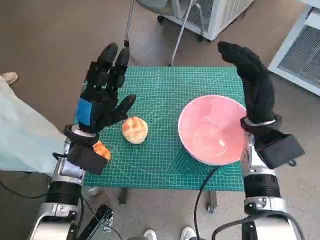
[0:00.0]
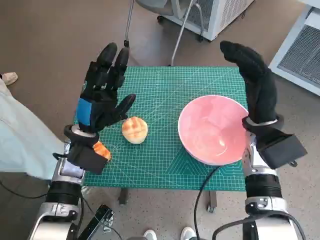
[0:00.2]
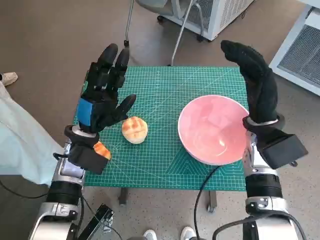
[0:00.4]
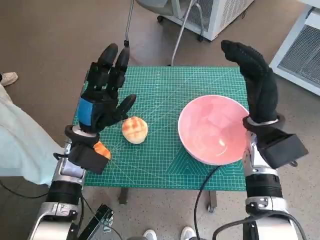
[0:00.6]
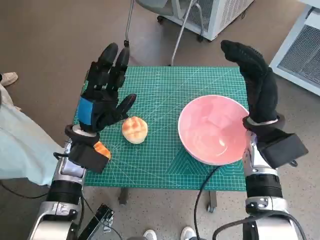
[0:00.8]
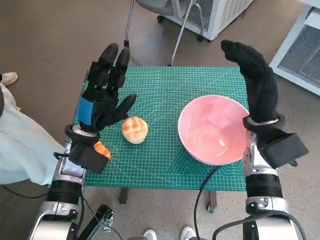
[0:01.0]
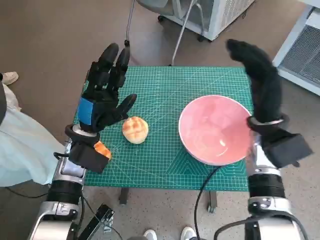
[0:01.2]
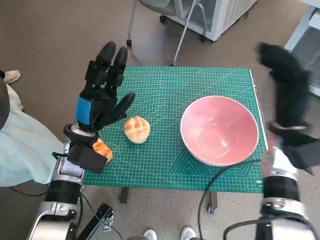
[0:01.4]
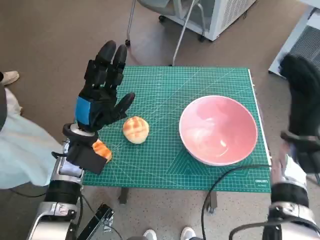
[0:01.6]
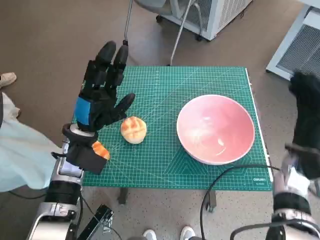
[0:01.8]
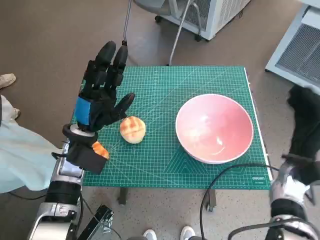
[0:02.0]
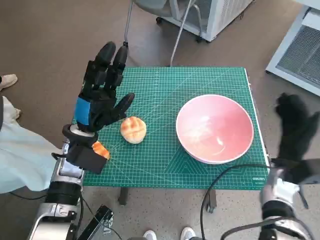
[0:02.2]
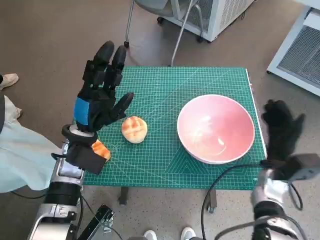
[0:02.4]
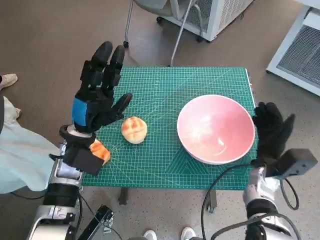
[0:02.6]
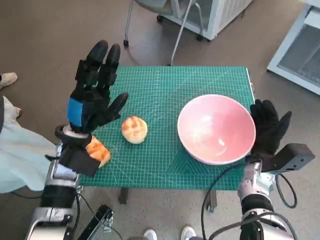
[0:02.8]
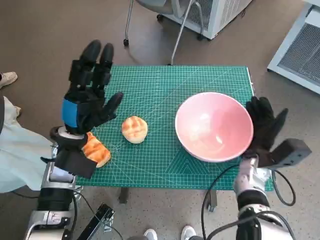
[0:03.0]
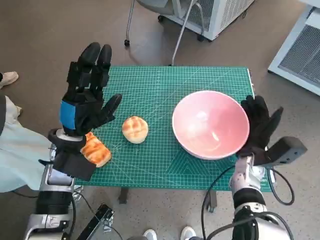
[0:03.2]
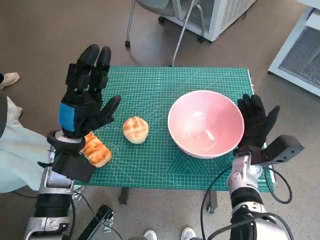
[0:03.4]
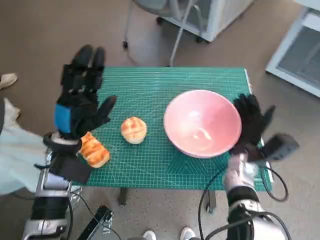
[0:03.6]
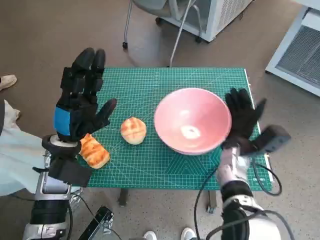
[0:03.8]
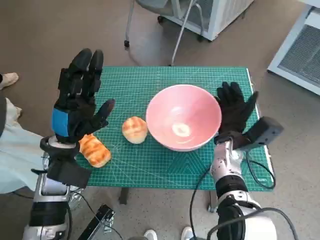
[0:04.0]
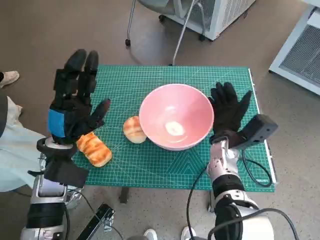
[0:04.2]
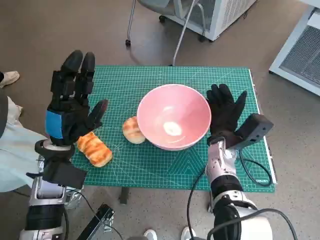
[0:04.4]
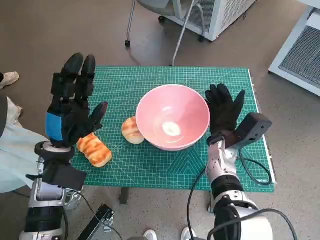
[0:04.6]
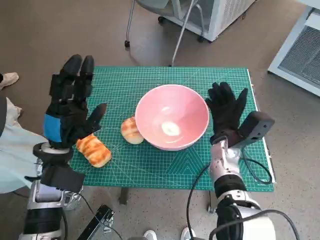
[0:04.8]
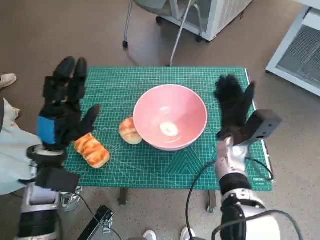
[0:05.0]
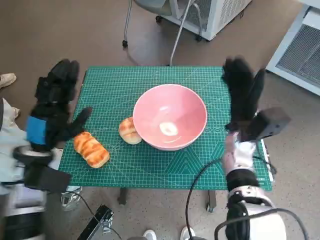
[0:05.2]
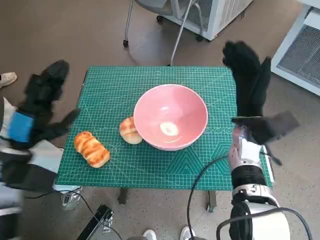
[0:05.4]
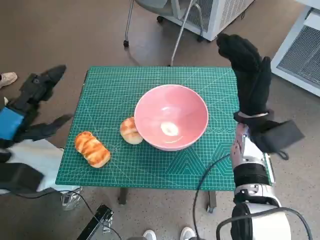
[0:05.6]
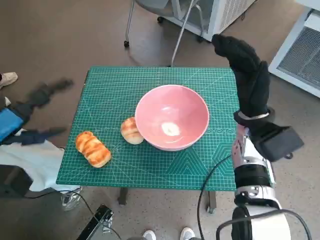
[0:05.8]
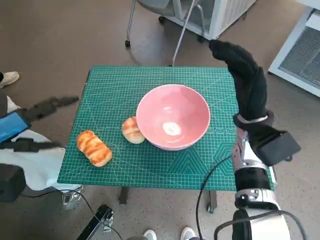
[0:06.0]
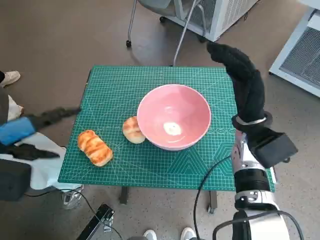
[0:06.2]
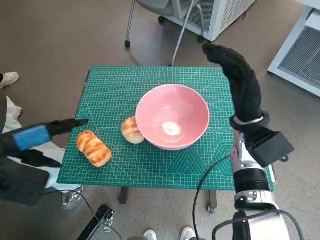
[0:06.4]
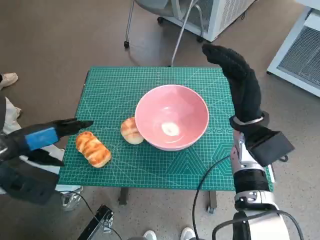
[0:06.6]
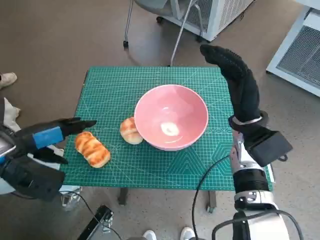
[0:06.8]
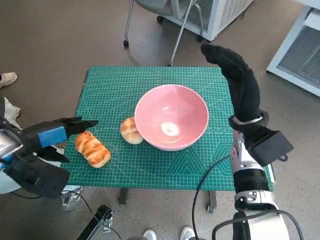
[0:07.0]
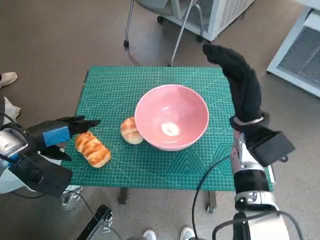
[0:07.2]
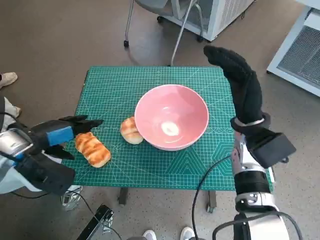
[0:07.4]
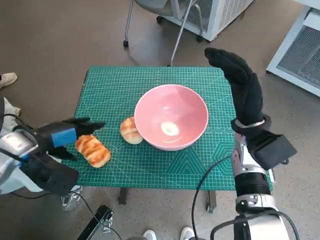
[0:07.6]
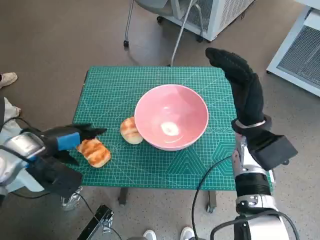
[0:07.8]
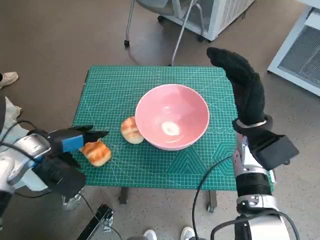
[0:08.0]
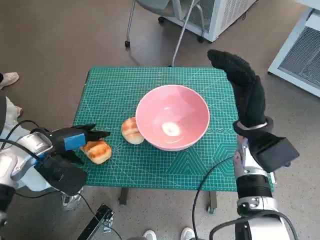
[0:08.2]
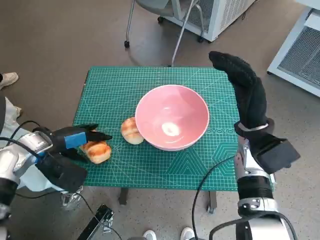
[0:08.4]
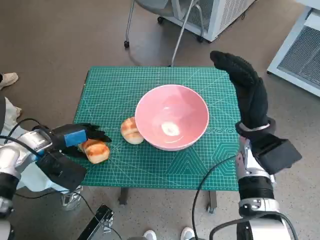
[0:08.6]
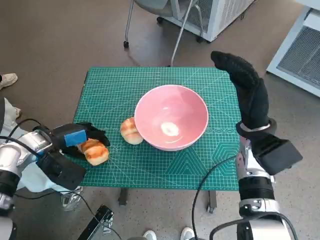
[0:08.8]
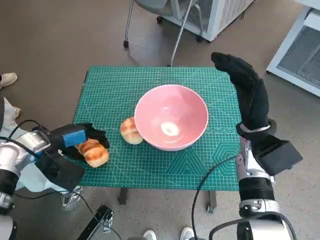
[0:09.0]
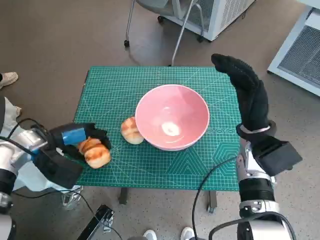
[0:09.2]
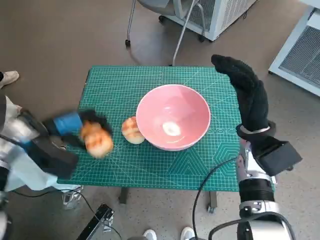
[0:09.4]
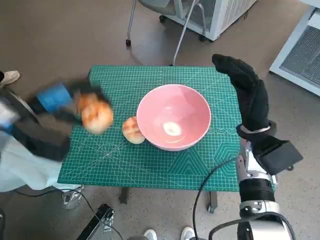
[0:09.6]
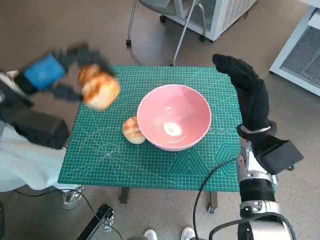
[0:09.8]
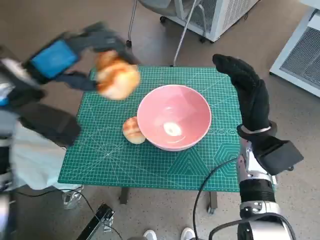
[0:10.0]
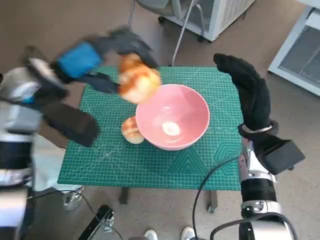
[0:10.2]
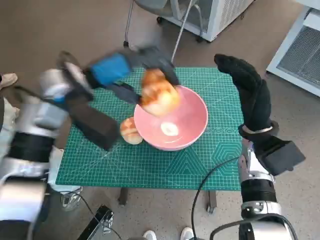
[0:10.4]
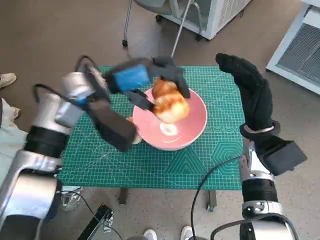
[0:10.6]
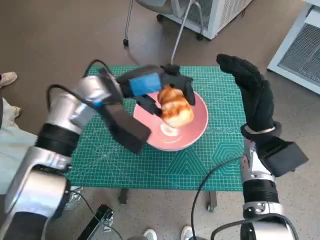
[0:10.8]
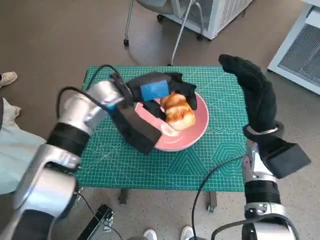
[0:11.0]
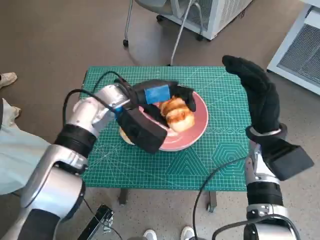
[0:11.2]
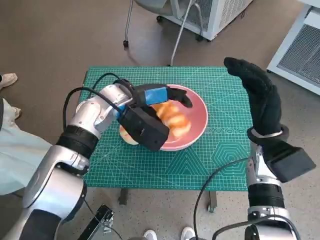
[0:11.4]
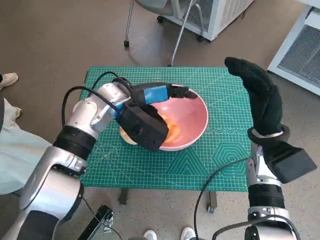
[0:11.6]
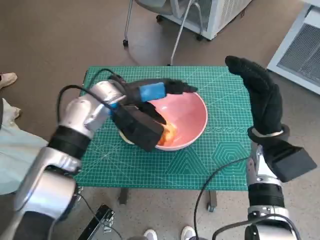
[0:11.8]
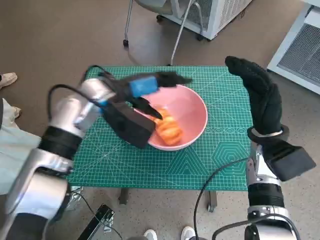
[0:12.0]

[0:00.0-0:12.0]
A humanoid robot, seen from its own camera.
Task of the whole recording: Push the bowl to the center of the table and put the bread into the bowl.
Step, 0:00.0 to 0:04.8: Move the pink bowl to the center of table with right hand.
Step, 0:05.2 to 0:09.0: Grasp the long bread with left hand.
Step, 0:09.2 to 0:12.0: Place the long bread in pink bowl with left hand.
0:01.6 to 0:03.0: The right hand travels downward by roughly 10 cm.
0:03.0 to 0:04.4: The right hand goes some 10 cm to the left.
0:04.4 to 0:06.0: The left hand shifts approximately 15 cm to the left and upward; the right hand is displaced upward by approximately 10 cm.
0:06.0 to 0:07.6: The left hand shifts roughly 5 cm downward.
0:07.6 to 0:09.0: The left hand shifts roughly 5 cm downward.
0:09.0 to 0:10.4: The left hand heads upward and to the right, covering some 20 cm.
0:10.4 to 0:12.0: The left hand moves about 5 cm.

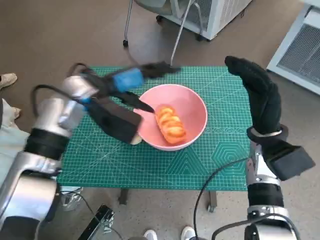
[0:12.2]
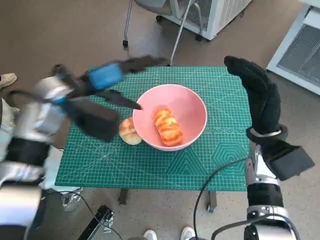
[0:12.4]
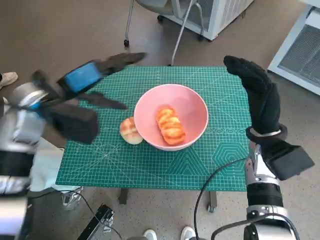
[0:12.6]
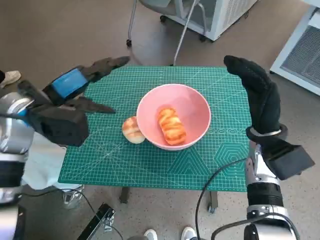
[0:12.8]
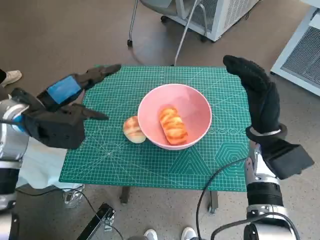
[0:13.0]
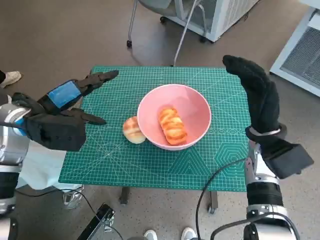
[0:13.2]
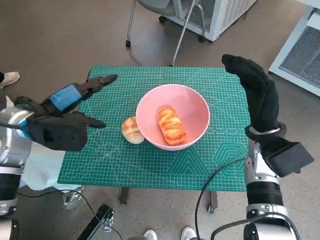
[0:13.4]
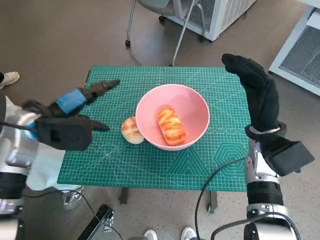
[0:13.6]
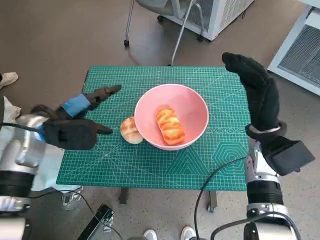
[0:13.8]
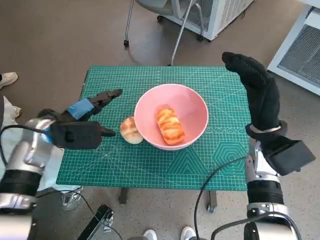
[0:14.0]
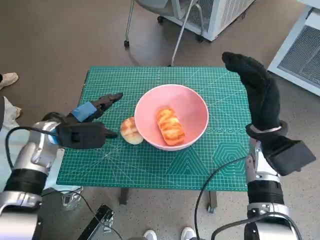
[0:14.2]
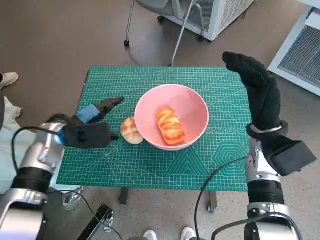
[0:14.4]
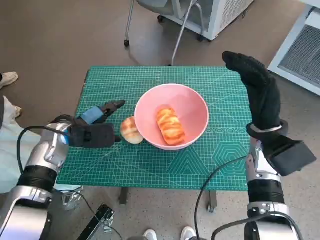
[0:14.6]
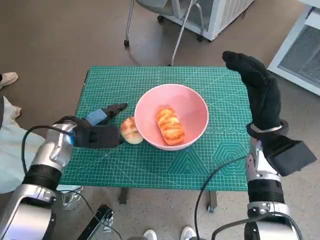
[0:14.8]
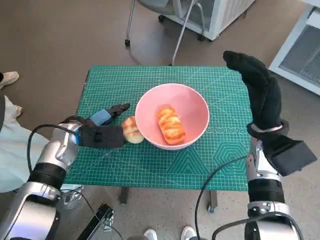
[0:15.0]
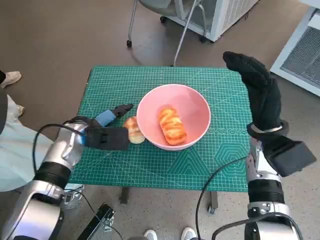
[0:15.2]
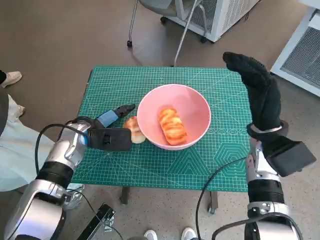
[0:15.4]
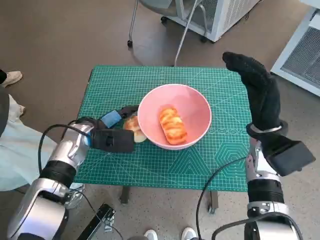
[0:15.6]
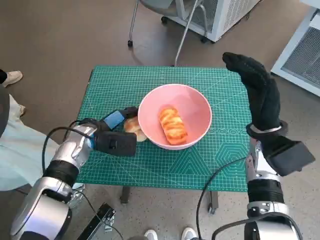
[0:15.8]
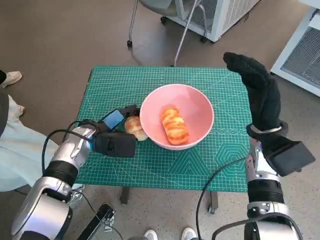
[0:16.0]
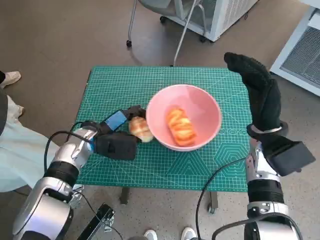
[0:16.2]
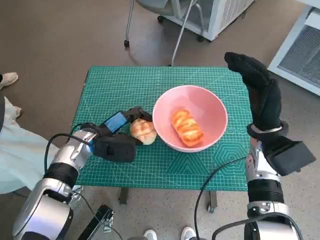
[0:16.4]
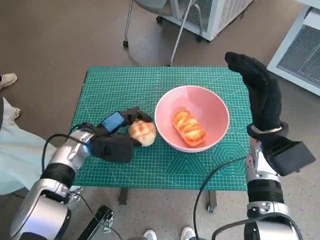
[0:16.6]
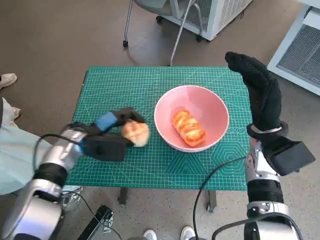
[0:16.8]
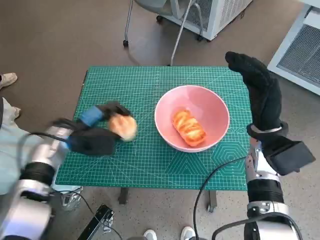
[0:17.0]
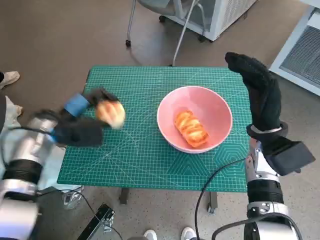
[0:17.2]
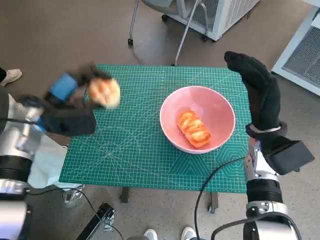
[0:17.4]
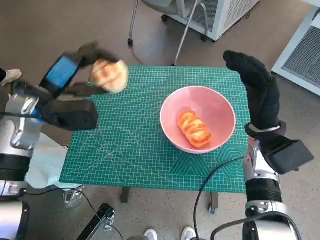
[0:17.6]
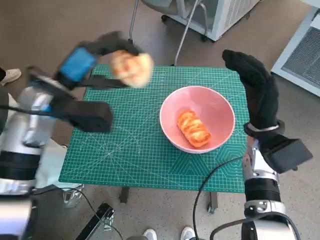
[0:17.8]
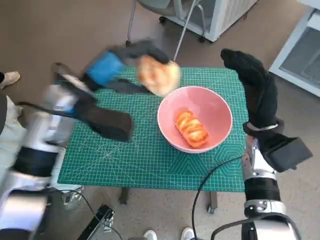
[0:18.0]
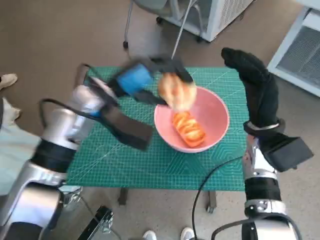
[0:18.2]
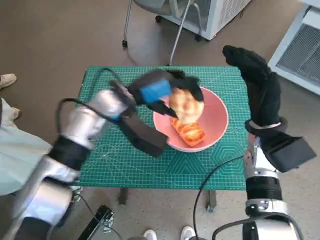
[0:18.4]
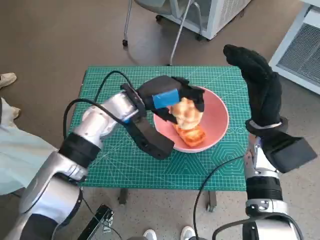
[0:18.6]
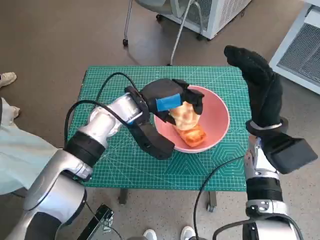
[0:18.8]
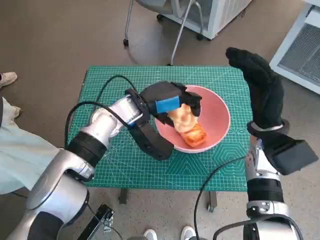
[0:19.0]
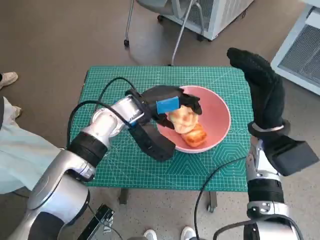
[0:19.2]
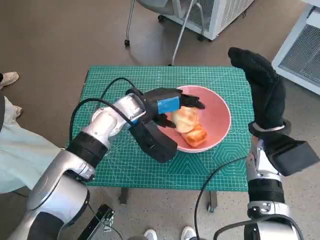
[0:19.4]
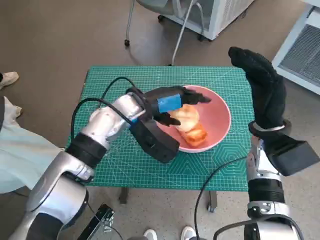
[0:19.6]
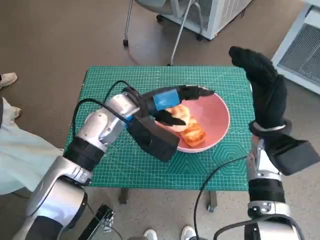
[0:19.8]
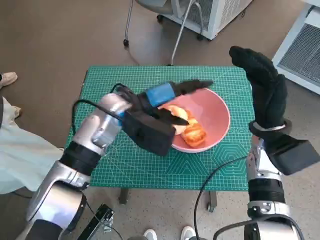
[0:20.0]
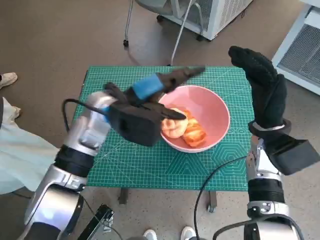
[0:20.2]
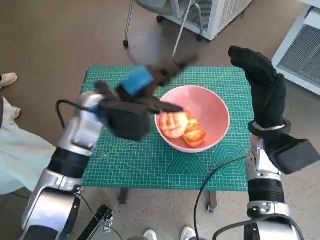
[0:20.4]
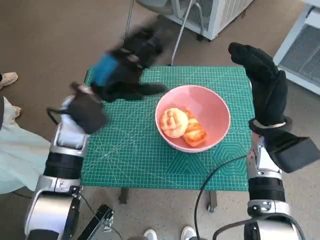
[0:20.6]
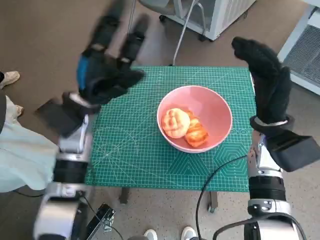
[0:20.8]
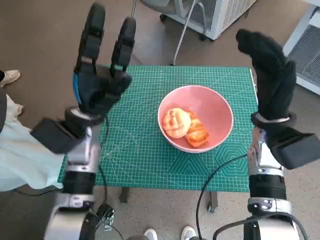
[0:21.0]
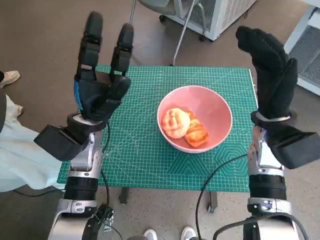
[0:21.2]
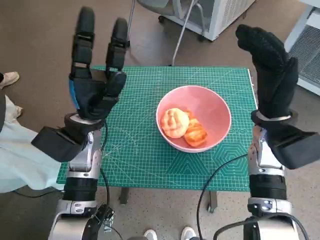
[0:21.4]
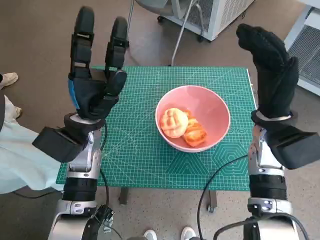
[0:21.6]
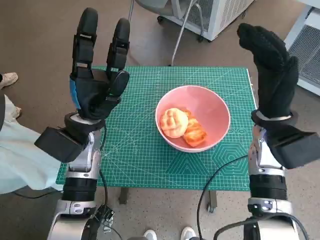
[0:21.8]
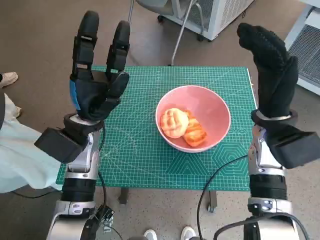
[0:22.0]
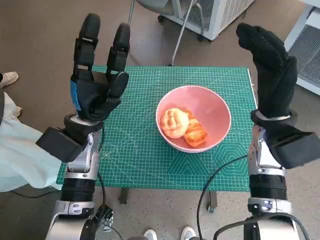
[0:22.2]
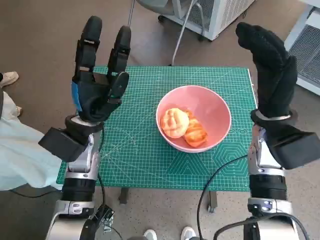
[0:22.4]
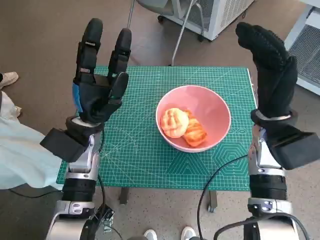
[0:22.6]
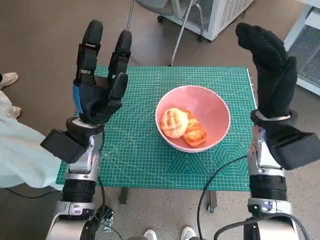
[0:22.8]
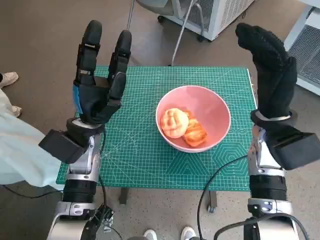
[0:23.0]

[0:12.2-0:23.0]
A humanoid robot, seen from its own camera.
Task of the whole recording: Push the bowl to the center of the table and put the bread into the bowl.
Step, 0:12.2 to 0:16.0: Grasp the round bread with left hand.
Step, 0:16.2 to 0:20.0: Place the round bread in pink bowl with left hand.
0:12.2 to 0:13.8: The left hand heads to the left, covering about 10 cm.
0:13.8 to 0:15.2: The left hand moves downward, about 5 cm.
0:15.2 to 0:16.8: The hands move only a little.
0:16.8 to 0:18.4: The left hand is displaced upward and to the right by roughly 15 cm.
0:20.0 to 0:21.4: The left hand goes approximately 5 cm to the left.
0:21.4 to 0:23.0: The hands stay close to where they were, moving slightly.
